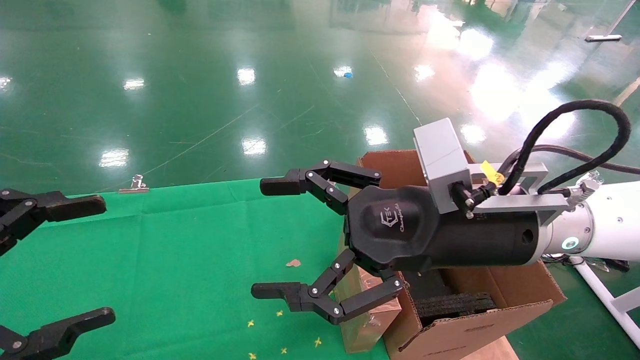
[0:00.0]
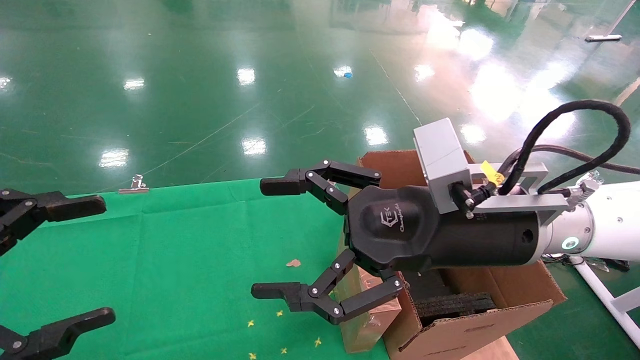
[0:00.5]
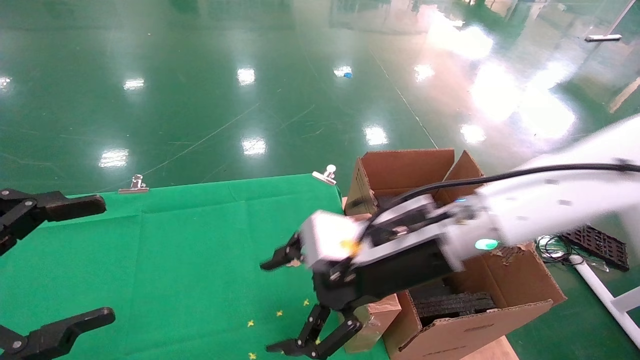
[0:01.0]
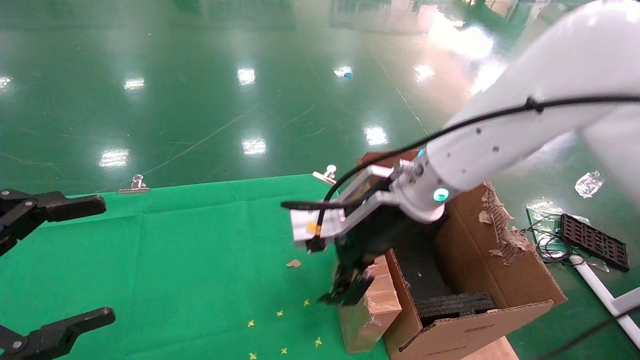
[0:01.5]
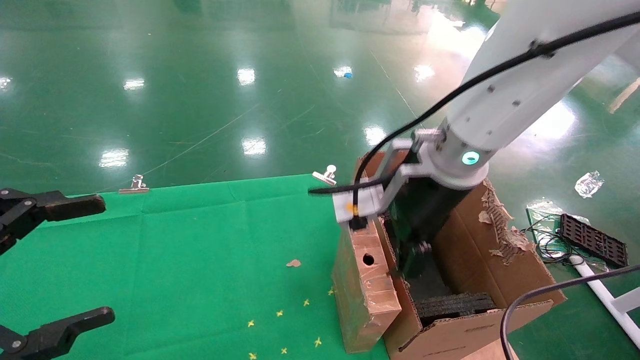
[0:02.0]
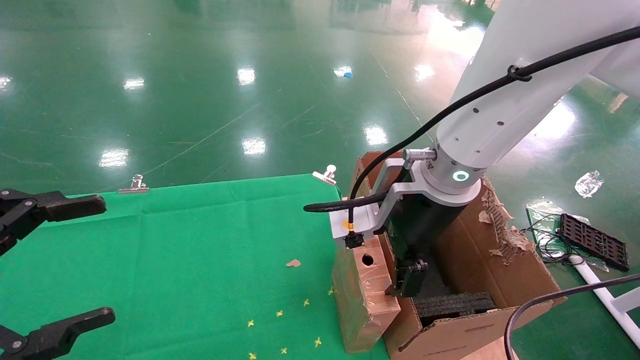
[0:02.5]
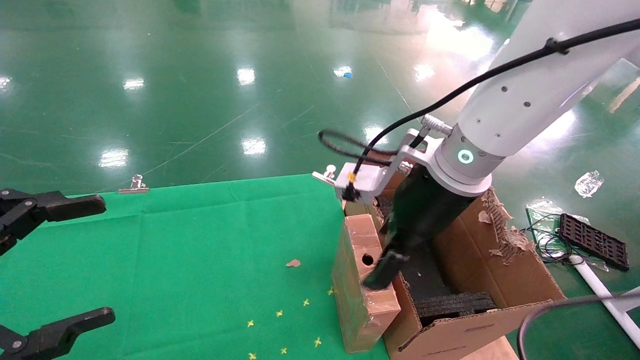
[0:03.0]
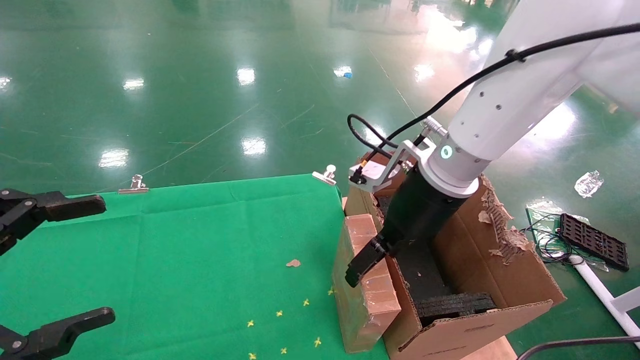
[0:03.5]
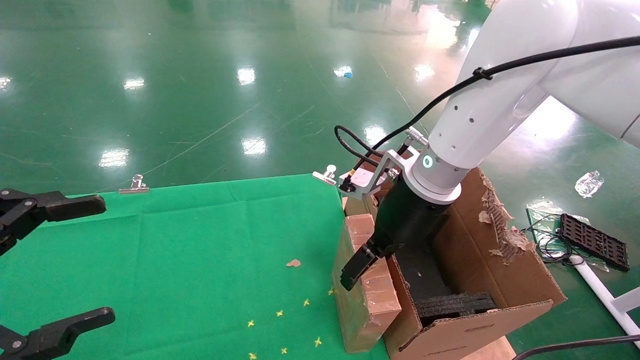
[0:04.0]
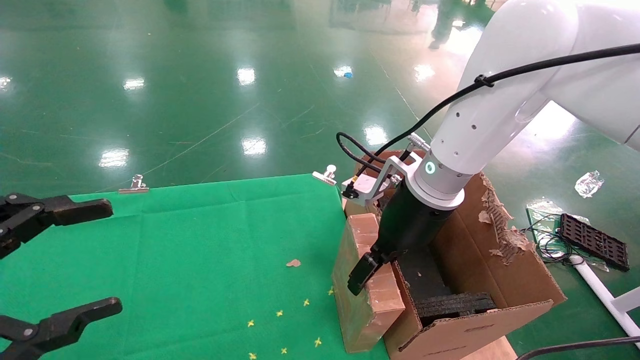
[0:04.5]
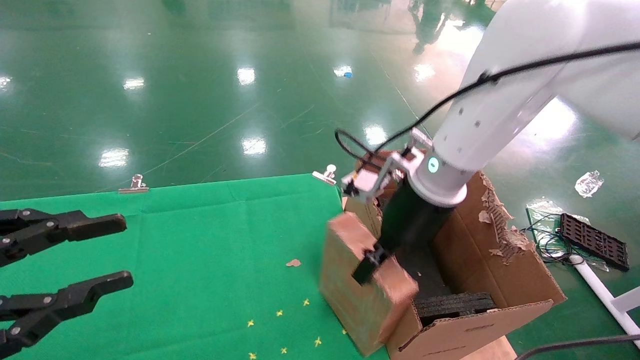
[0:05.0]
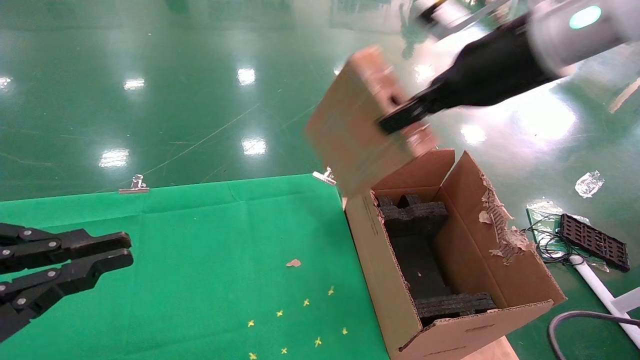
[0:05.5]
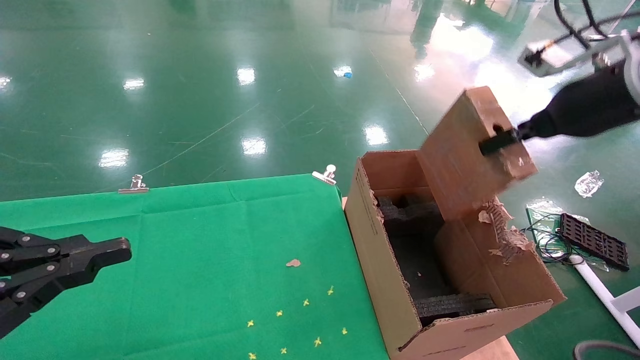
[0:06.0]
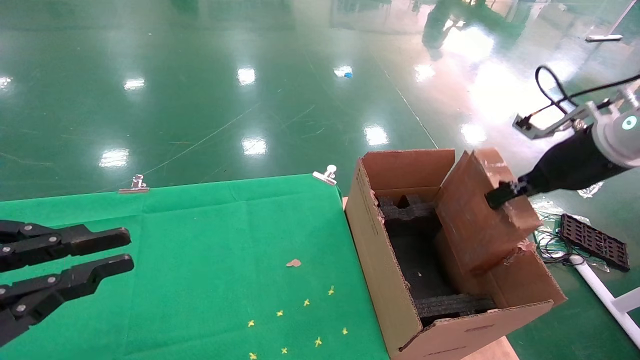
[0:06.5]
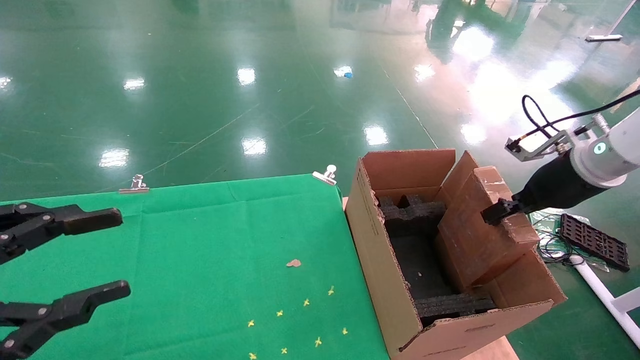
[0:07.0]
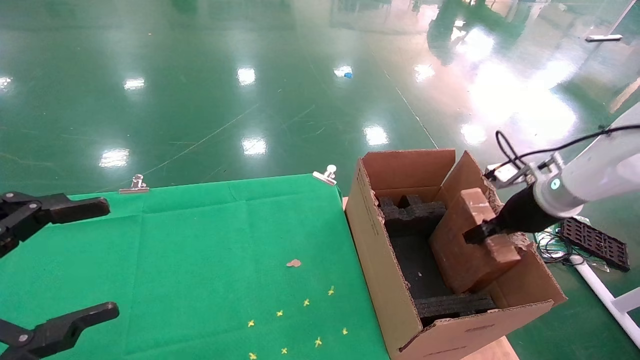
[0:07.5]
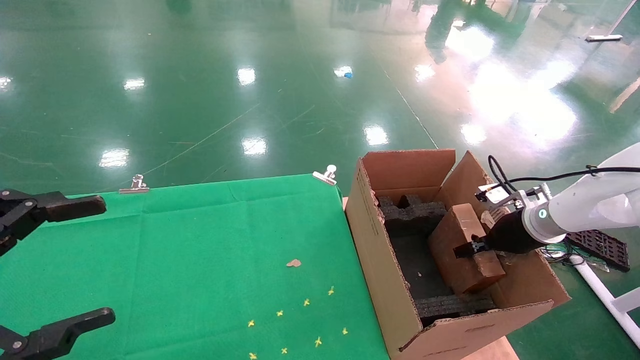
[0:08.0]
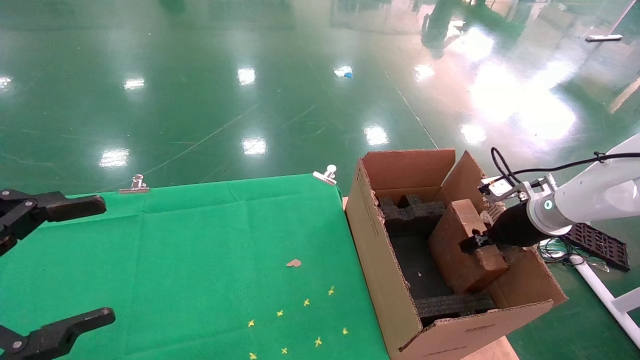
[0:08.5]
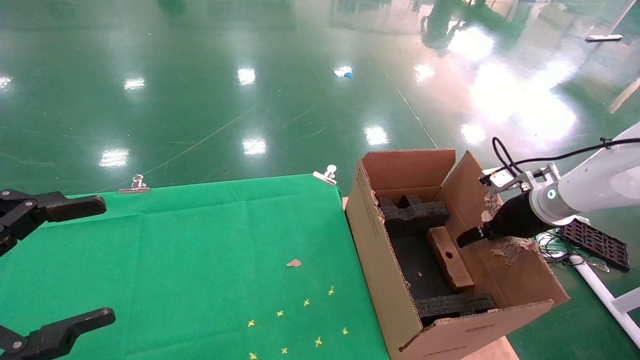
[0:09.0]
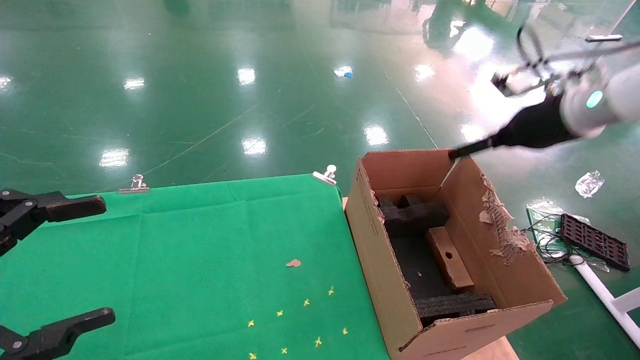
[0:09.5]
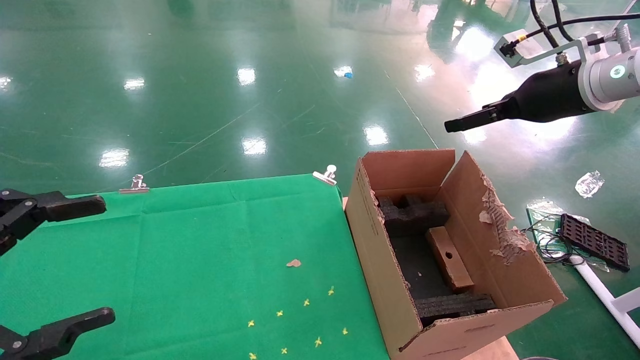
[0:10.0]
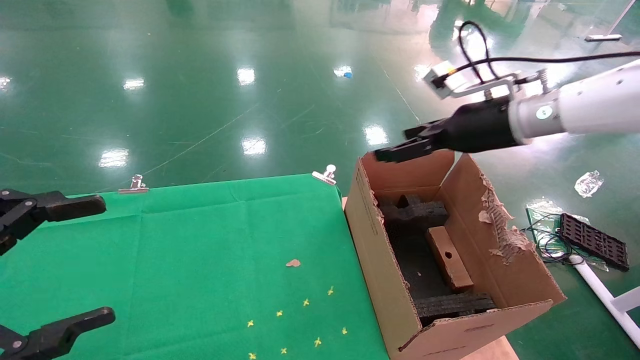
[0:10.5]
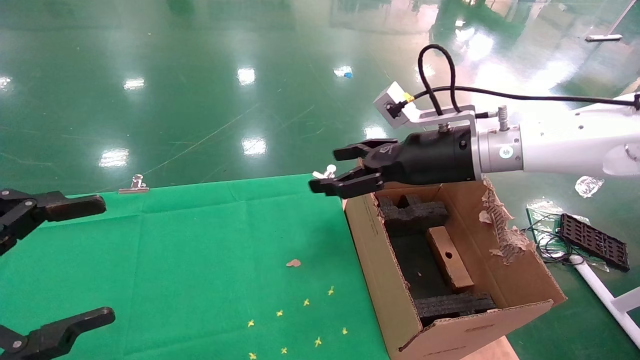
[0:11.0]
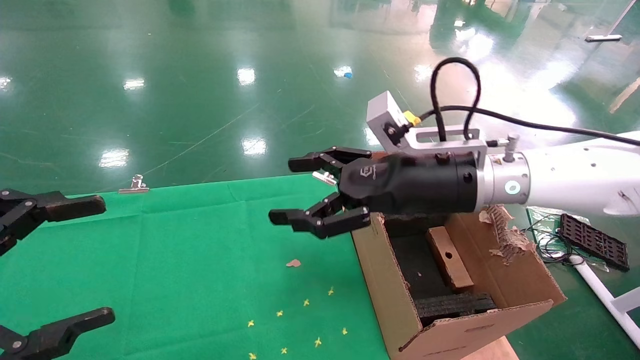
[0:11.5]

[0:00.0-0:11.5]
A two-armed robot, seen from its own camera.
Task of the whole recording: using a robotic arm to pick up a cardboard box and palace it the carton.
Step, 0:01.0 to 0:04.5: Pick up the mouse and the power cord paper box.
Step, 0:05.0 to 0:09.5: Place the mouse and the power cord paper box into the container.
0:00.0 to 0:02.0: The right gripper moves forward, about 5 cm.
0:02.0 to 0:04.0: The right gripper moves some 5 cm.
0:04.0 to 0:06.0: The right gripper is displaced to the right and upward by roughly 25 cm, and closes up. Meanwhile the left gripper closes up.
0:06.0 to 0:07.5: The left gripper opens up; the right gripper is displaced downward and forward by roughly 20 cm.
0:07.5 to 0:09.5: The right gripper shifts approximately 15 cm upward, and opens its fingers.
0:09.5 to 0:11.5: The right gripper heads to the left, covering roughly 20 cm.

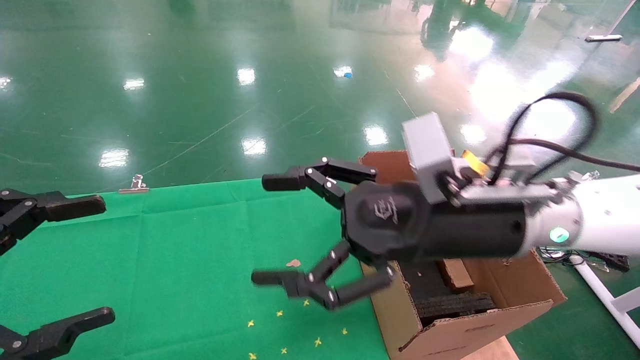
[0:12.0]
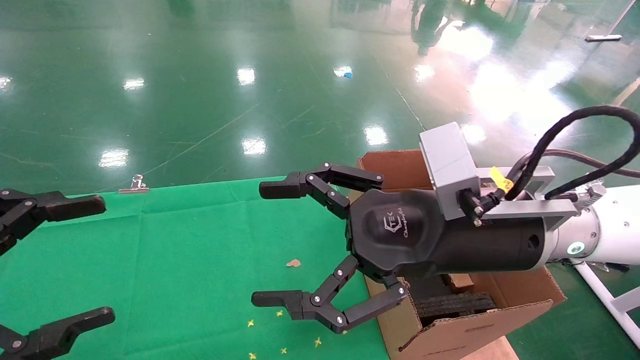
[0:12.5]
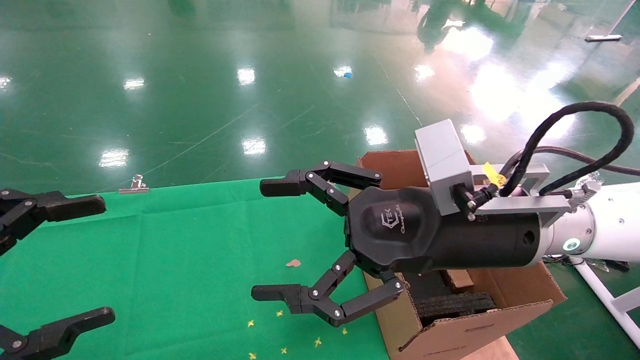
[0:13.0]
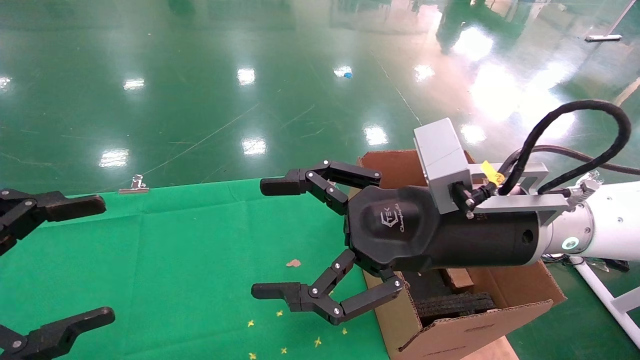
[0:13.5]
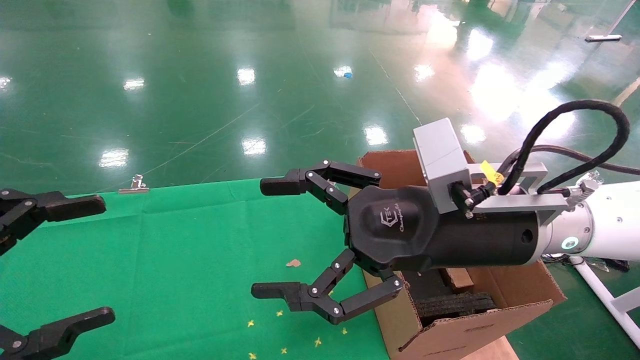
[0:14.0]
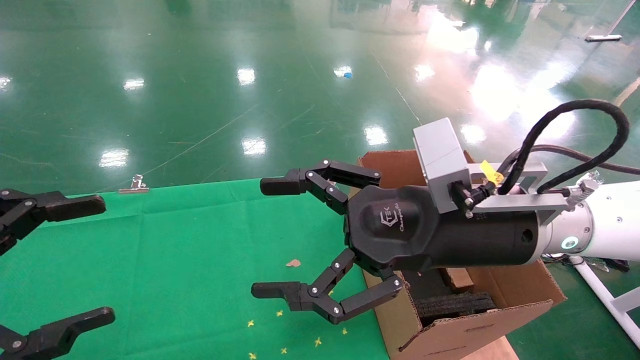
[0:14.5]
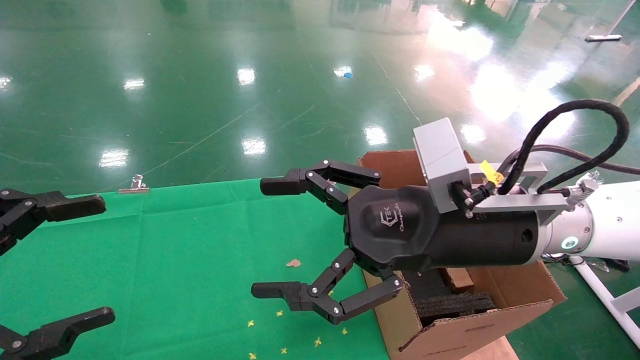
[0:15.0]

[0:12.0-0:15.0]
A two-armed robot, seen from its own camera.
Task of the whole recording: using a robotic arm to pick up a cardboard box and palace it the carton.
0:12.0 to 0:13.5: The grippers move only a little.
0:13.5 to 0:15.0: Both grippers stay about where they are.
